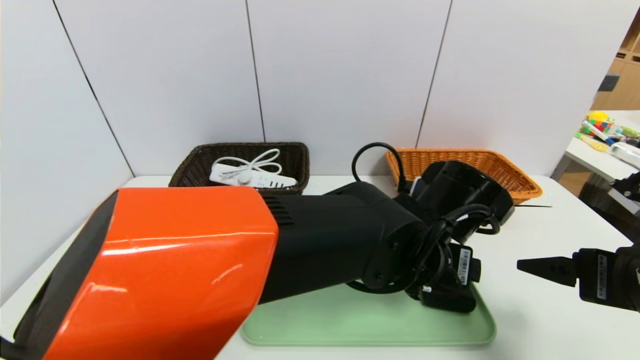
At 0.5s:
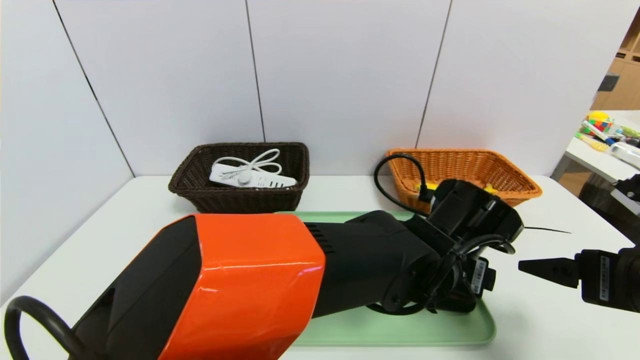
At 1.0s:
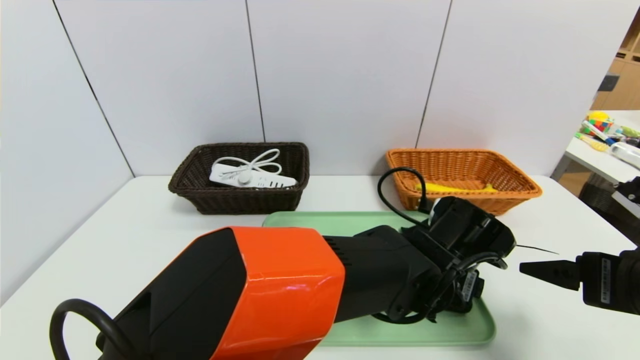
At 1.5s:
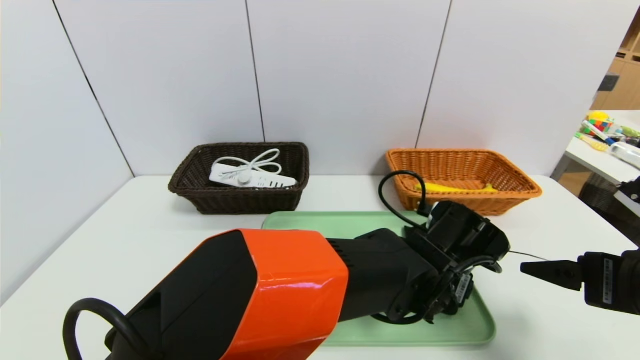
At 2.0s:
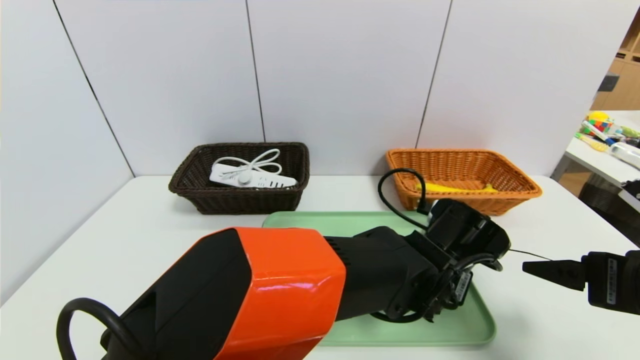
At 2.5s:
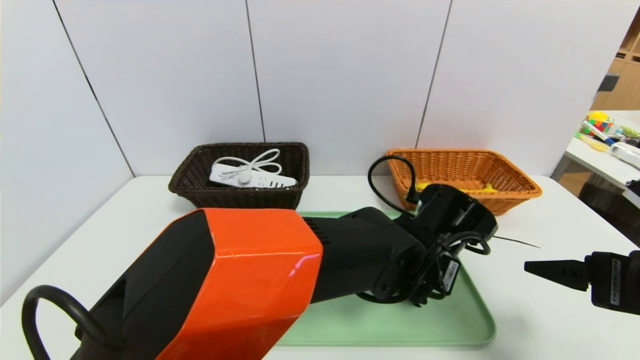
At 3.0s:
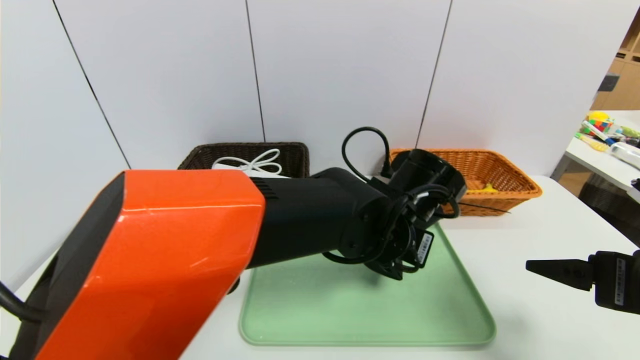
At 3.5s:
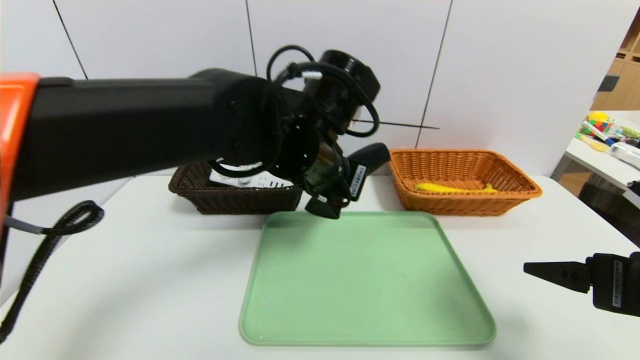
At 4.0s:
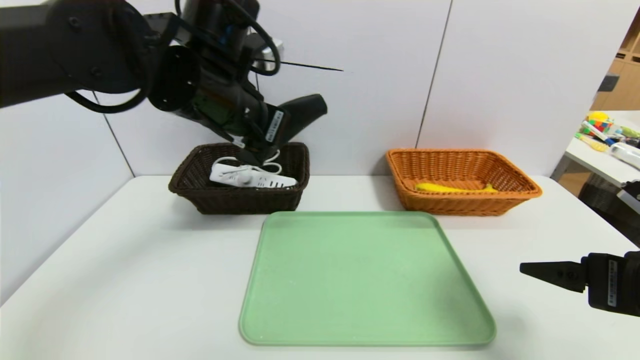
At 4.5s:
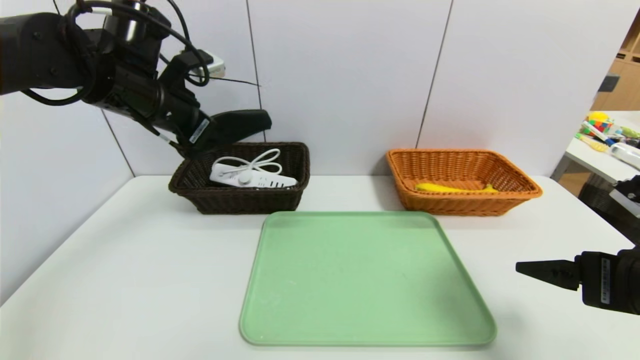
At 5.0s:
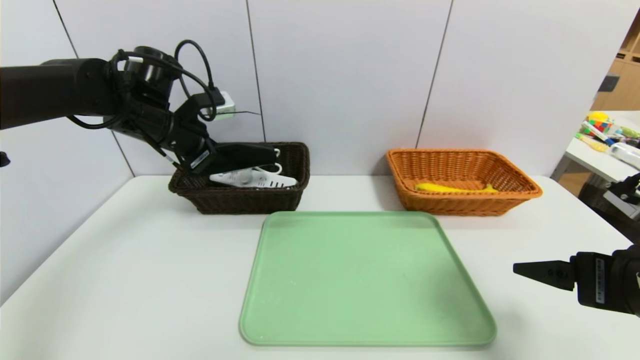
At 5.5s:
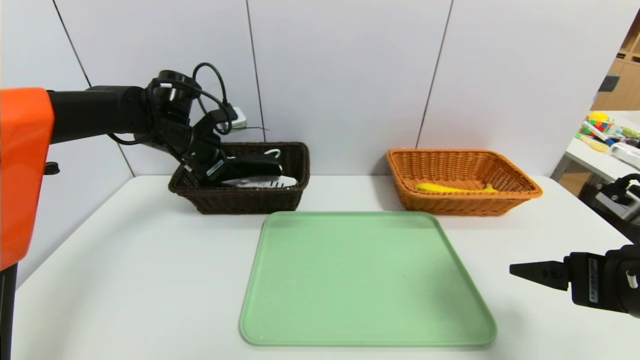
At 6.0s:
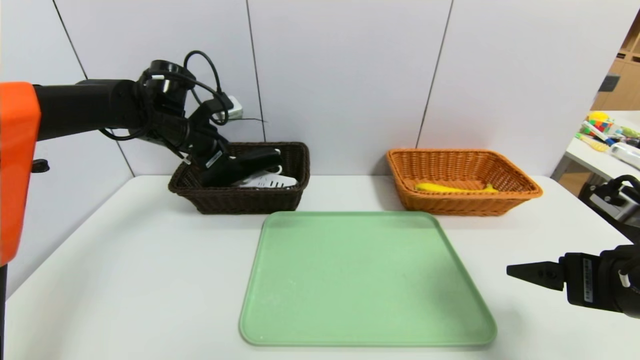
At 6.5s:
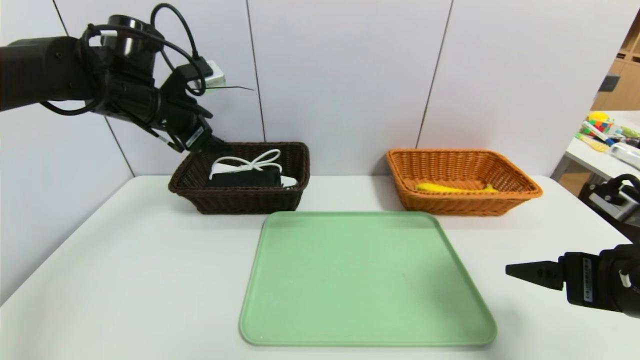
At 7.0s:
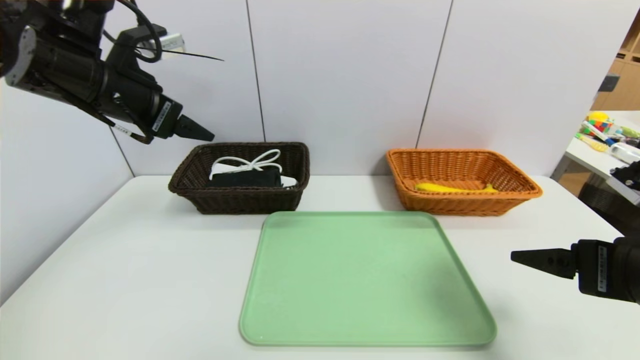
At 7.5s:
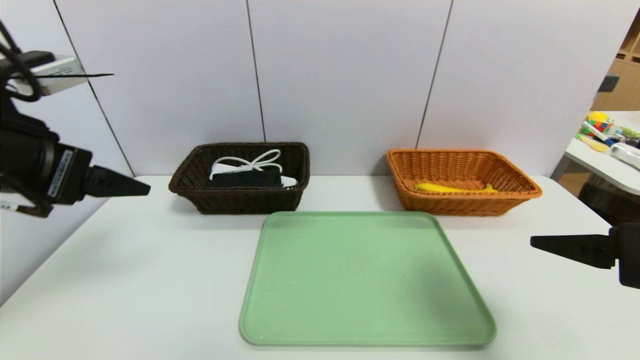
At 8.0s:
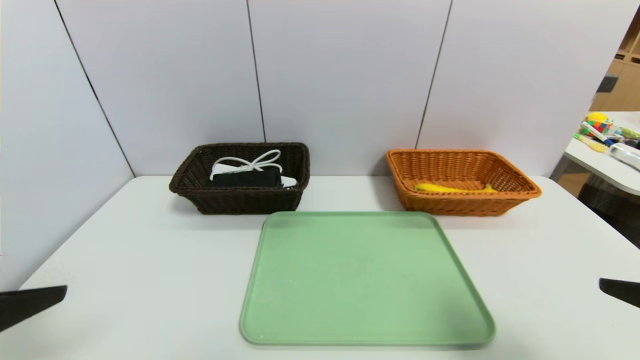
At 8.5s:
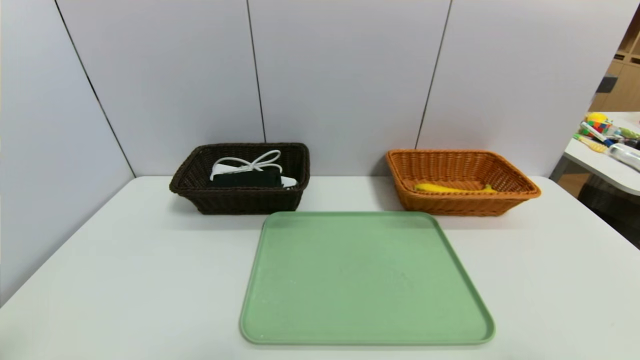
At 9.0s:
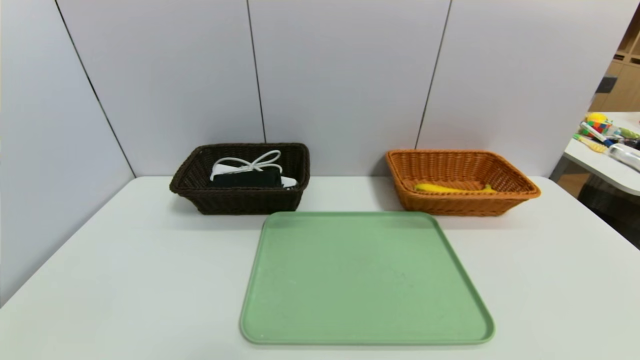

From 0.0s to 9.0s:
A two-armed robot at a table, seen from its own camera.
Task of the whole recording: place the food in the right basket with the right gripper, and place the non food items in the left basket with the left gripper.
Step, from 0.0s to 7.0s: Grasp the glasses case and put it in the left basket.
From 0.0s to 2.0s: The left gripper shifts approximately 5 cm downward, and closes.
From 2.0s to 4.5s: The left gripper travels to the left and upward by some 40 cm.
From 4.5s to 7.0s: The left gripper opens up.
From 7.0s to 9.0s: The left gripper moves backward and downward, about 40 cm, while the right gripper is displaced backward by roughly 20 cm.
